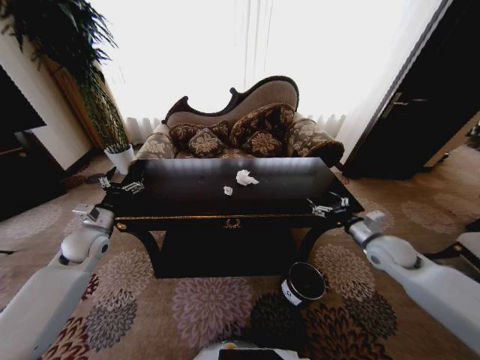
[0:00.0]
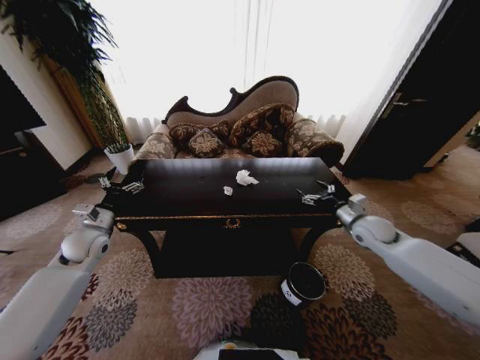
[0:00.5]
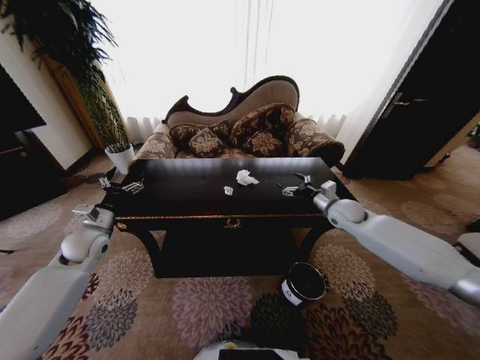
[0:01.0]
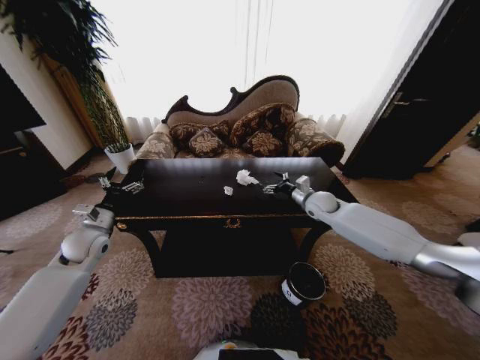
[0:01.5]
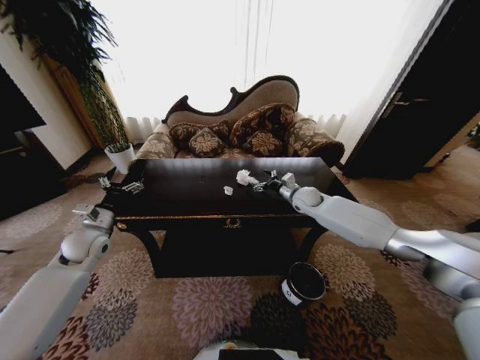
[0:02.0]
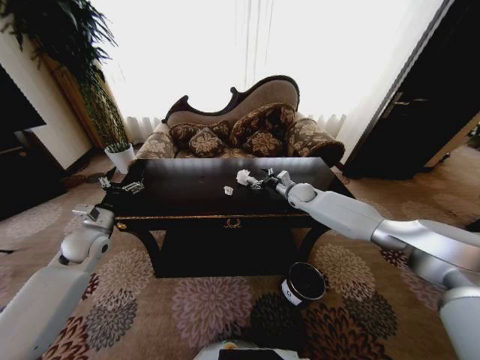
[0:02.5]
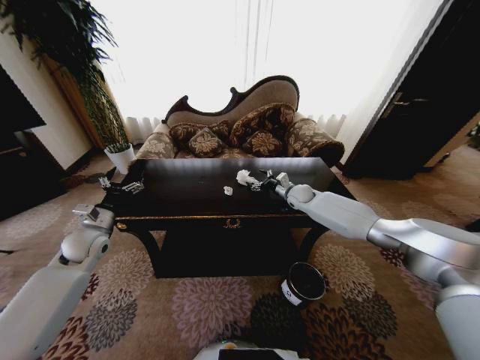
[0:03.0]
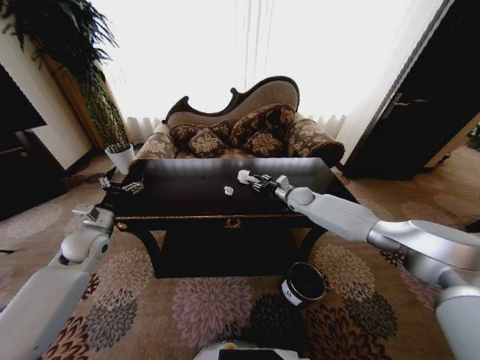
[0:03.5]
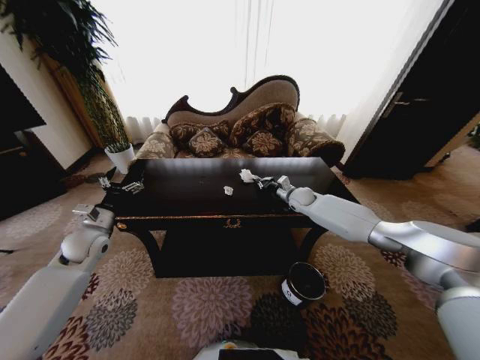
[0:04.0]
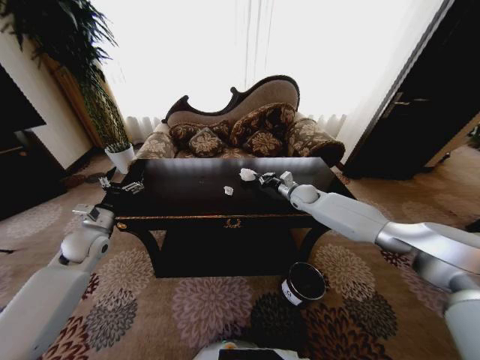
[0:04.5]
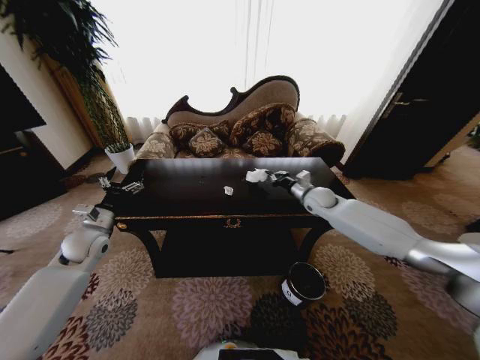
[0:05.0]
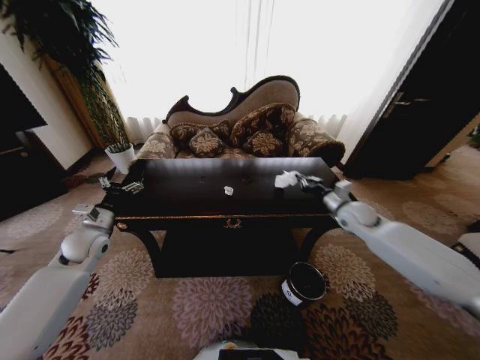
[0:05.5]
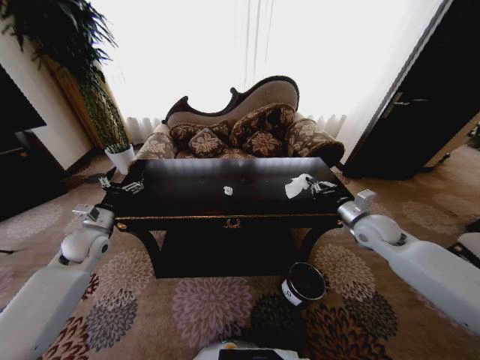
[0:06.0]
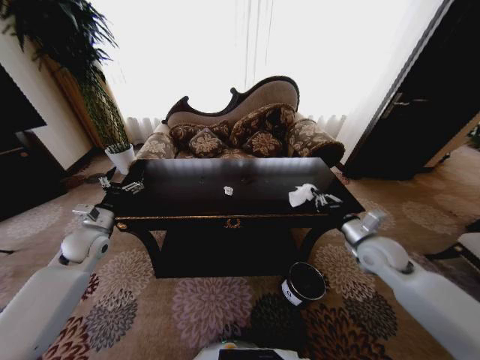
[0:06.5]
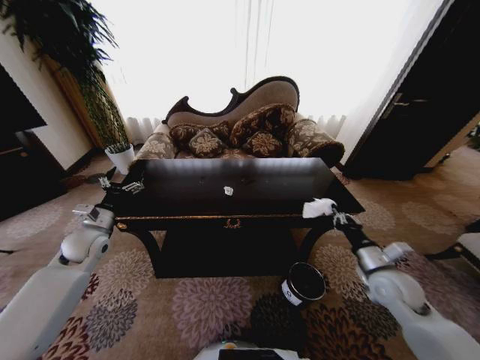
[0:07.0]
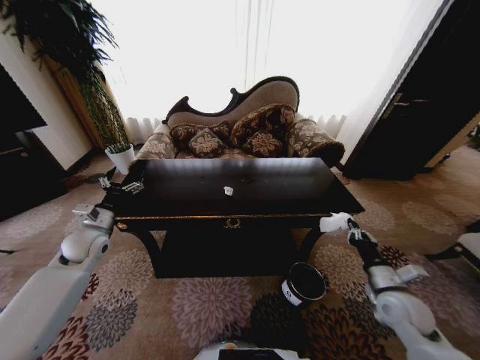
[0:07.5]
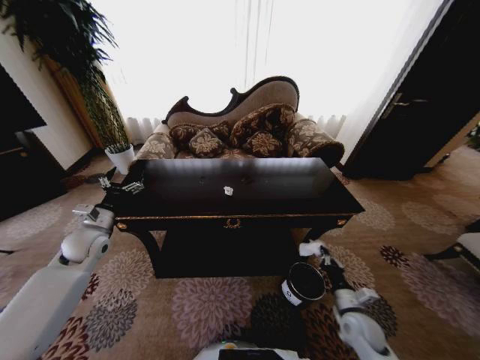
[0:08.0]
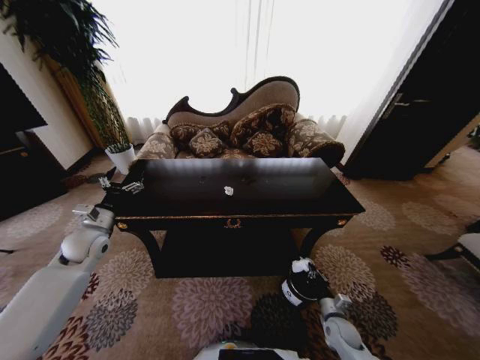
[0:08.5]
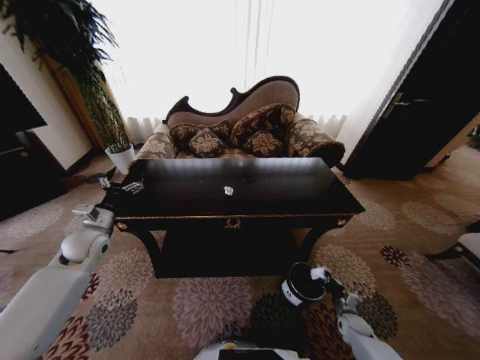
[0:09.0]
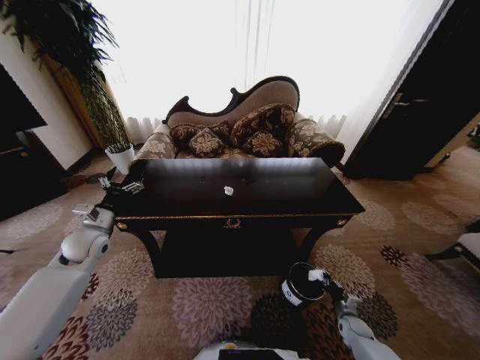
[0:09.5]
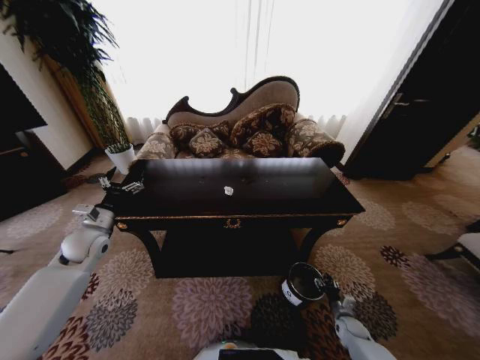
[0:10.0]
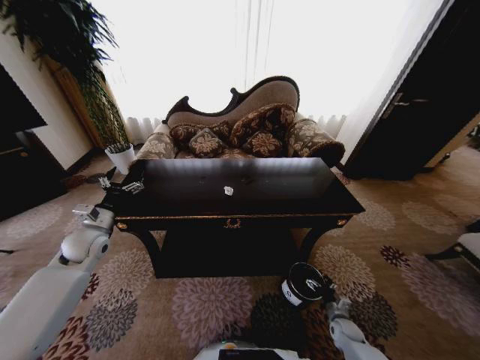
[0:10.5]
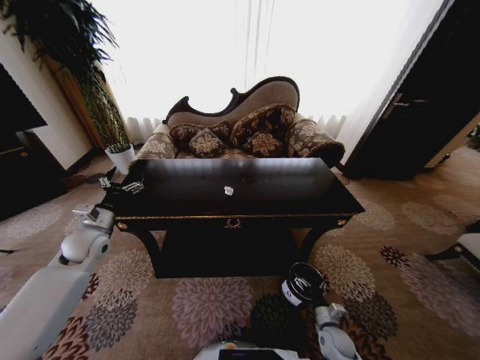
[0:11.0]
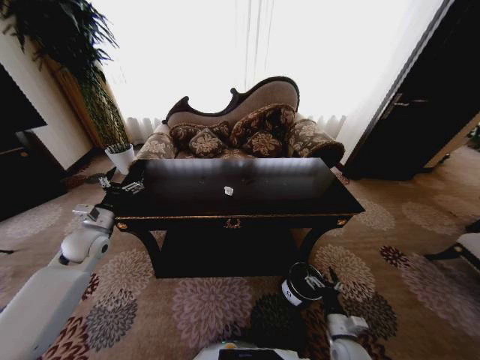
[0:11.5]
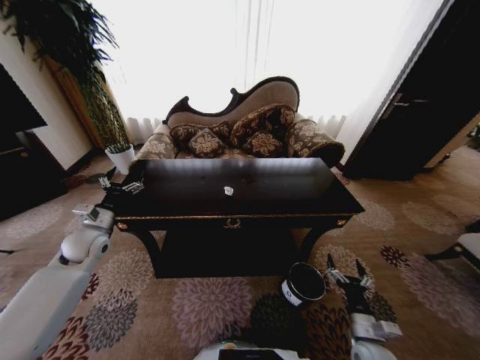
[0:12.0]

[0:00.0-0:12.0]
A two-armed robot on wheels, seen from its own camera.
Task of the whole recording: Move to the front of the table and place the trash on the table into the trash bin.
0:00.0 to 0:02.0: The right gripper shifts about 25 cm forward and to the left.
0:02.0 to 0:04.0: The right gripper closes.
0:04.0 to 0:06.0: The right gripper shifts roughly 25 cm backward and to the right.
0:06.0 to 0:08.0: The right gripper heads downward and backward, covering some 30 cm.
0:08.0 to 0:10.0: The right gripper shifts roughly 20 cm downward and to the right, and opens.
0:10.0 to 0:12.0: The right gripper moves upward, backward and to the left, some 20 cm, and opens up.

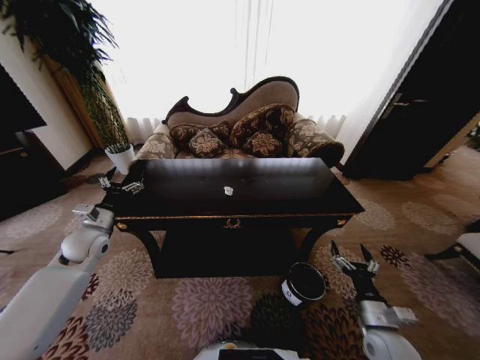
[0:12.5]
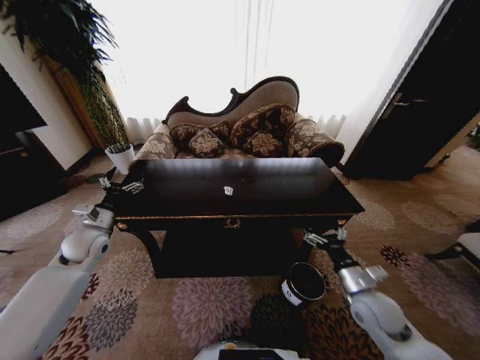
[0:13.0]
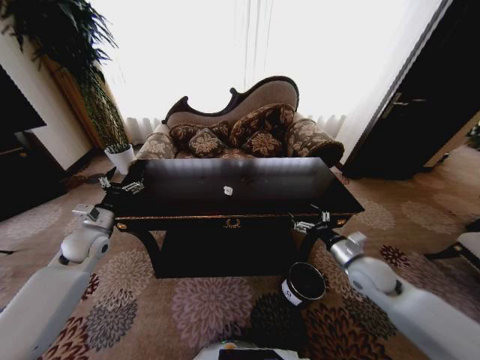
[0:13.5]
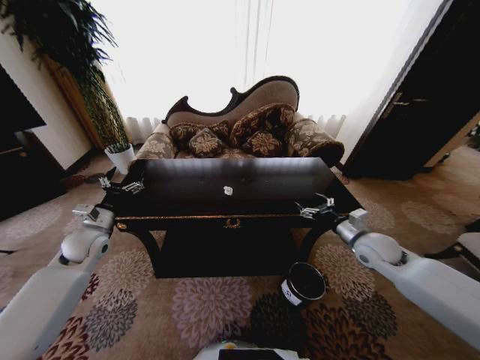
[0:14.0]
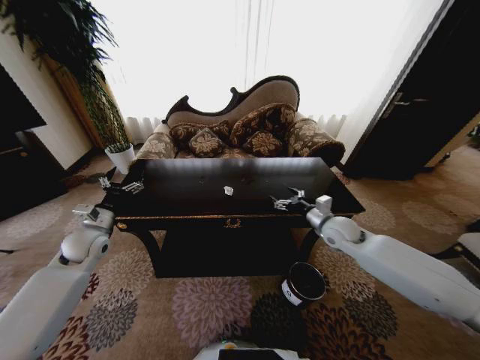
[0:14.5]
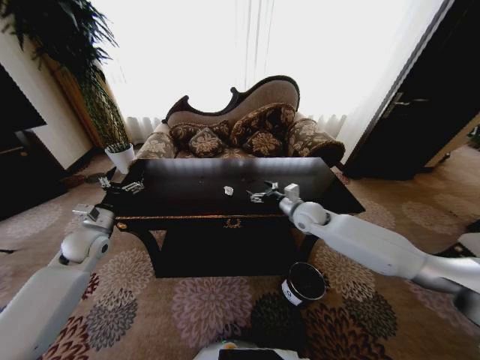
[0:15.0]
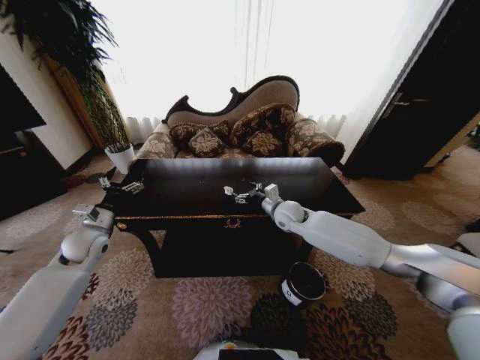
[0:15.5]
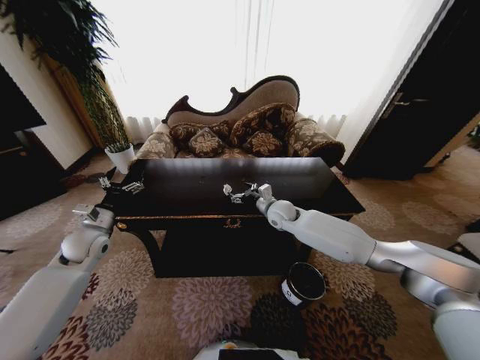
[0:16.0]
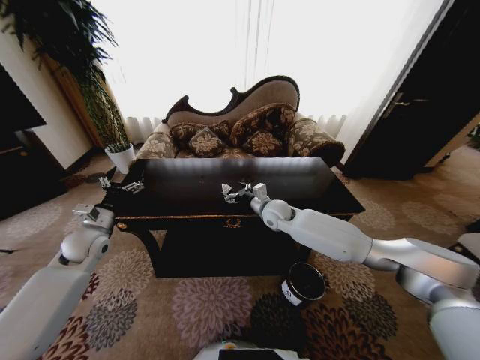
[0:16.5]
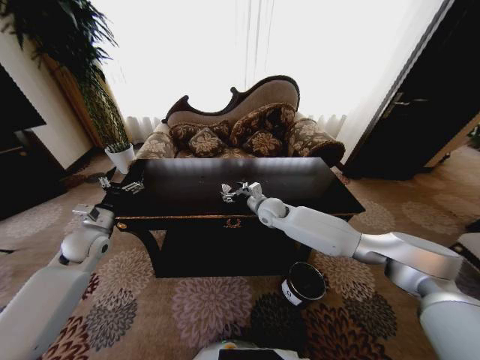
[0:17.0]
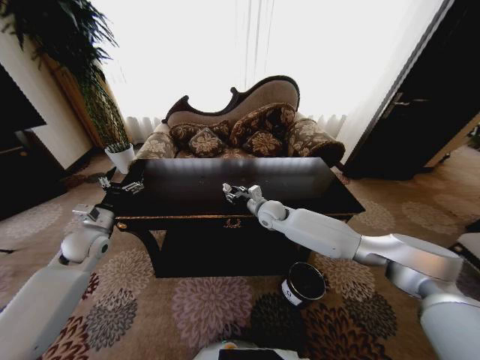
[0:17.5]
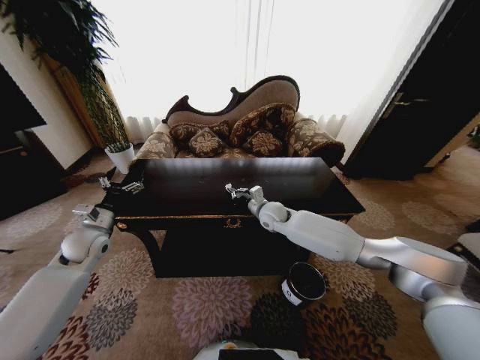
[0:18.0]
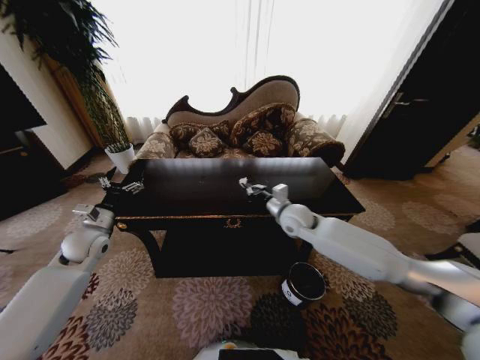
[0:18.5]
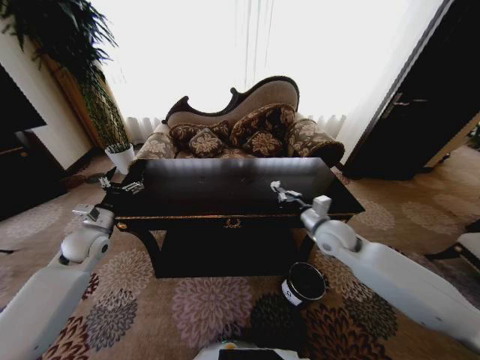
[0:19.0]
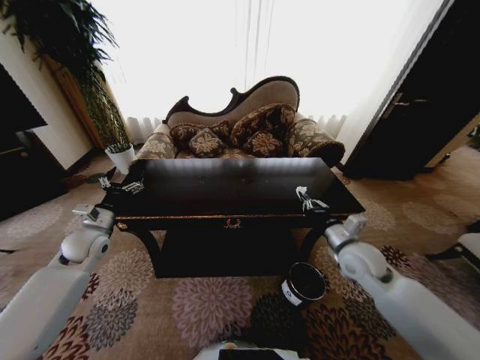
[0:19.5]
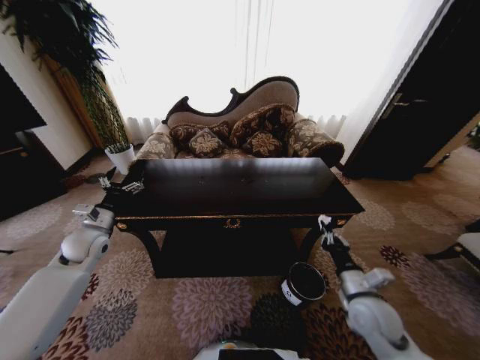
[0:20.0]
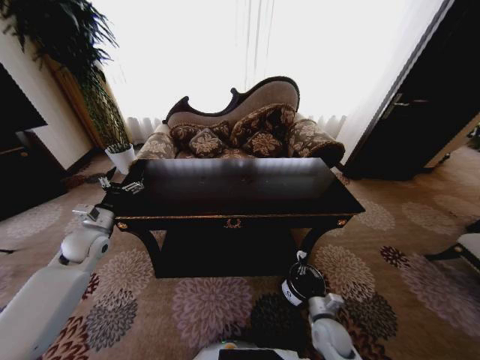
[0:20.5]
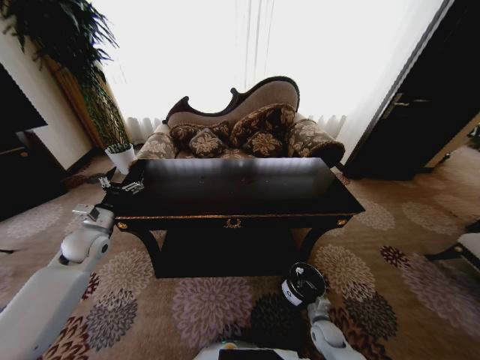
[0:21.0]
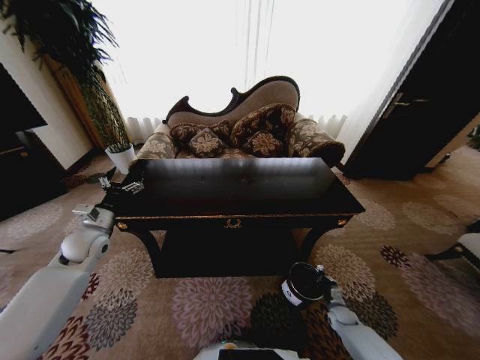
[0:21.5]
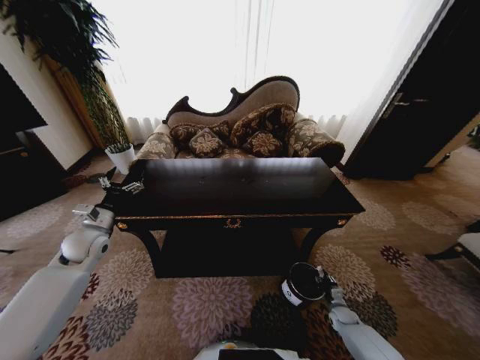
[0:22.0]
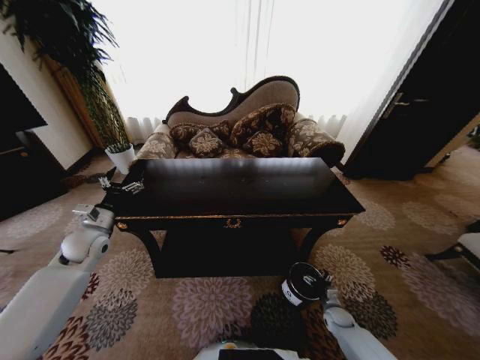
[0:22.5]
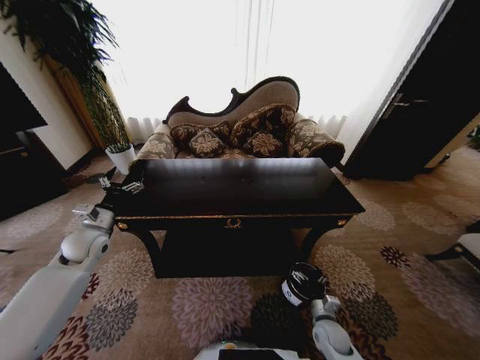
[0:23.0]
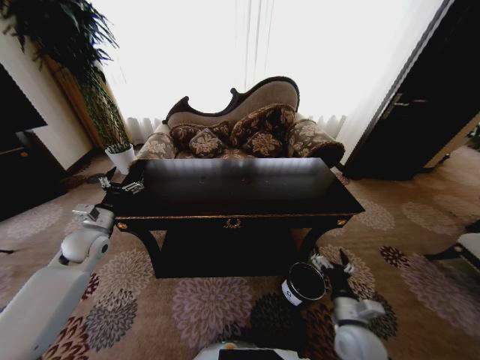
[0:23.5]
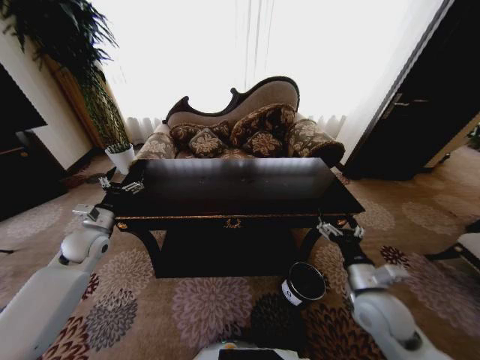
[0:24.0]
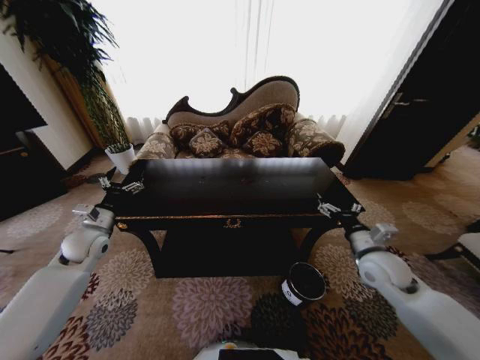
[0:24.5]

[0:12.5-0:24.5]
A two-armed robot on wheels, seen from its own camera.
Task of the whole recording: Move to the front of the table and place the trash on the table into the trash bin.
0:12.5 to 0:14.5: The right gripper travels forward and upward by about 30 cm.
0:14.5 to 0:16.5: The right gripper goes some 20 cm to the left and forward.
0:16.5 to 0:18.5: The right gripper ends up about 5 cm from where it was, and closes its fingers.
0:18.5 to 0:20.5: The right gripper heads downward and backward, covering about 35 cm.
0:20.5 to 0:22.5: The right gripper shifts roughly 20 cm downward, to the right and forward, and opens its fingers.
0:22.5 to 0:24.5: The right gripper travels upward by some 35 cm.

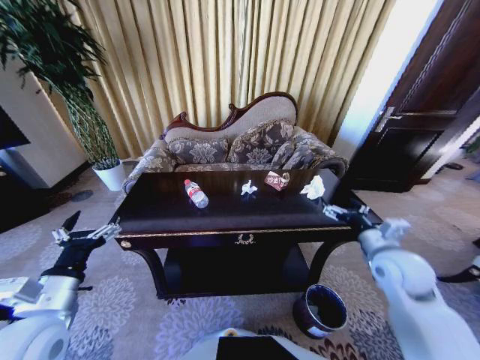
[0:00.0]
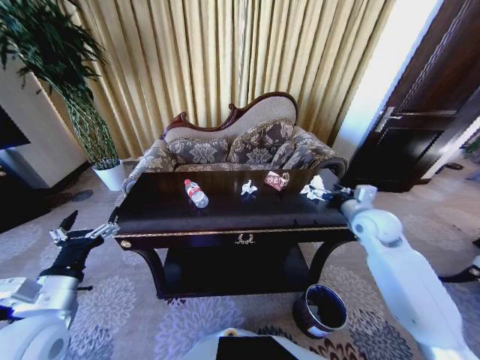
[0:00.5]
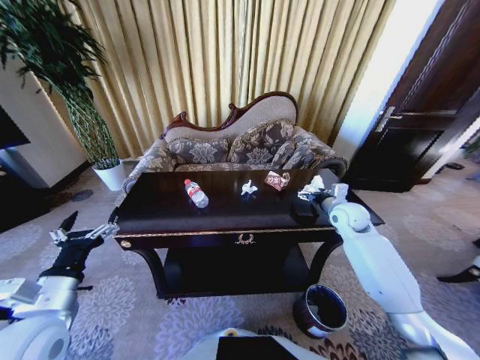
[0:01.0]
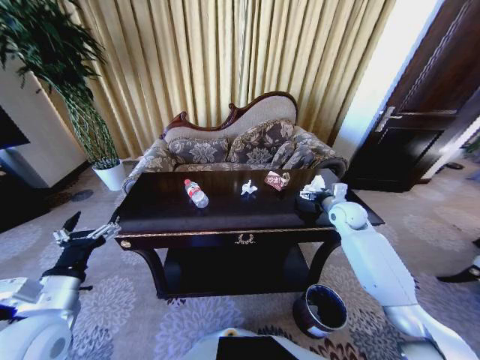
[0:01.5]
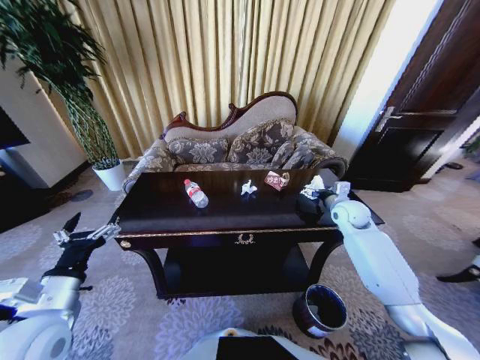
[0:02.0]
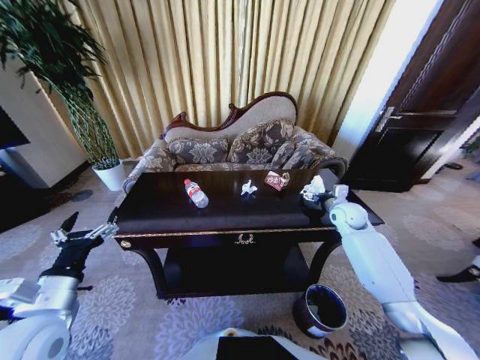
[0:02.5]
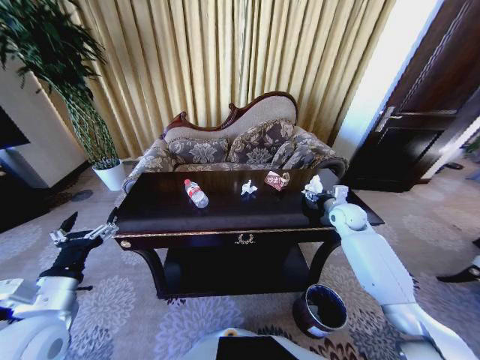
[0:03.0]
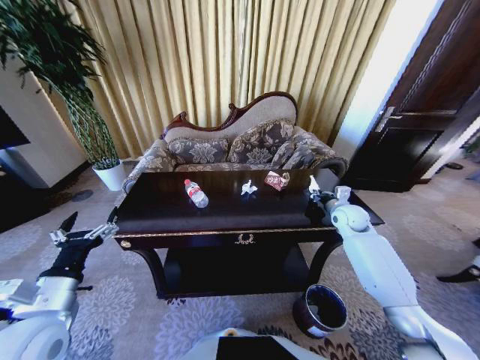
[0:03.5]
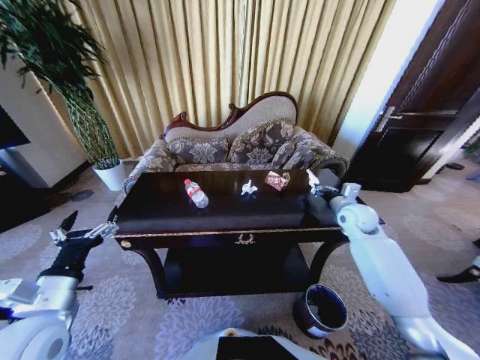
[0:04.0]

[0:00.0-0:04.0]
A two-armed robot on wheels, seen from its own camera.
Task of the whole recording: Move to the front of the table and place the trash on the table into the trash bin.
0:00.0 to 0:02.0: The right gripper goes about 20 cm forward.
0:02.0 to 0:04.0: The right gripper closes its fingers.
